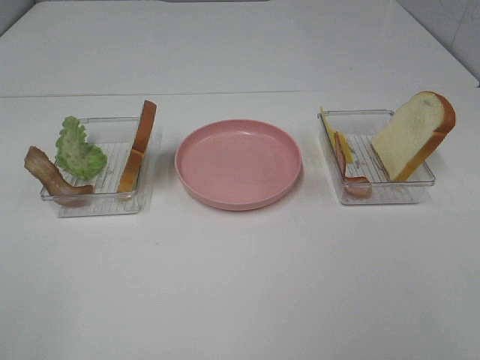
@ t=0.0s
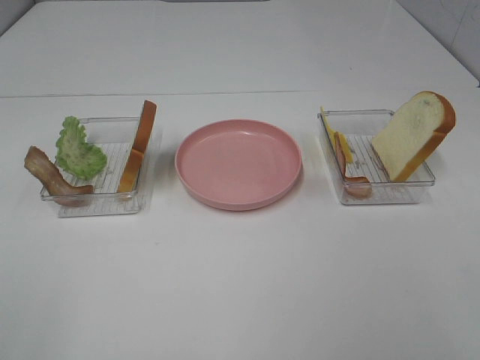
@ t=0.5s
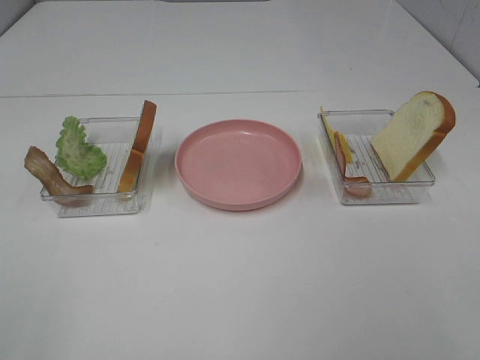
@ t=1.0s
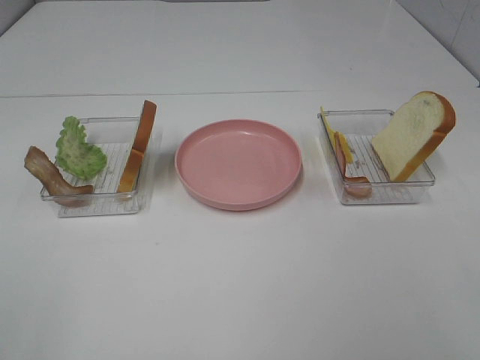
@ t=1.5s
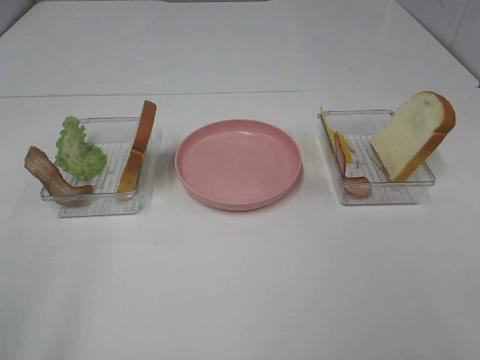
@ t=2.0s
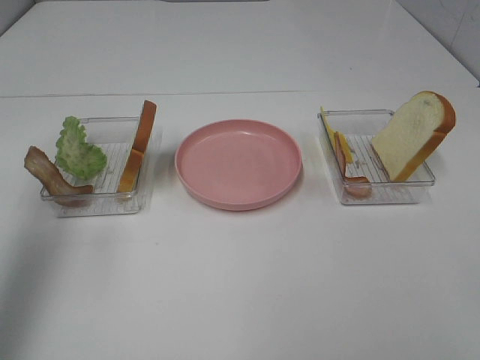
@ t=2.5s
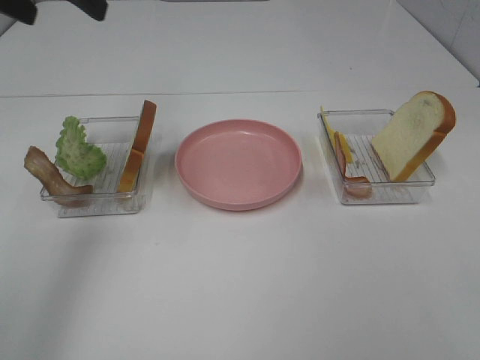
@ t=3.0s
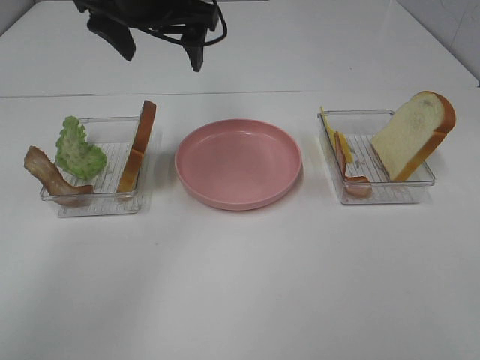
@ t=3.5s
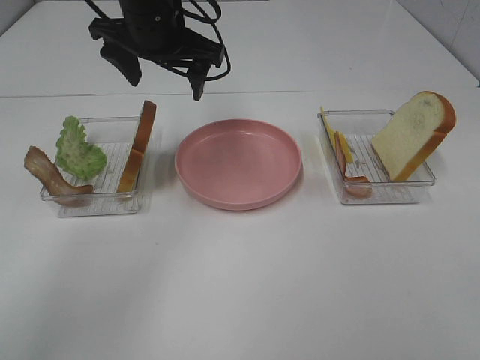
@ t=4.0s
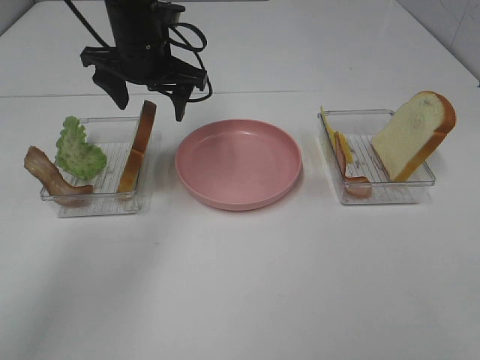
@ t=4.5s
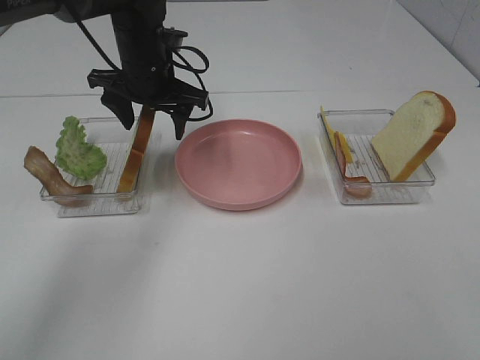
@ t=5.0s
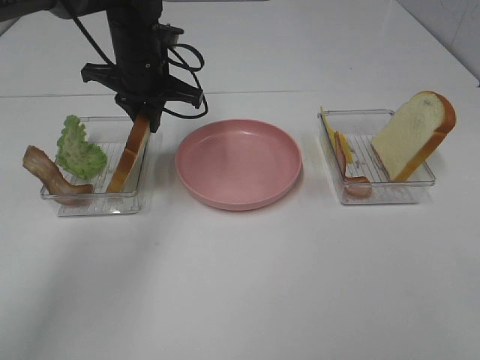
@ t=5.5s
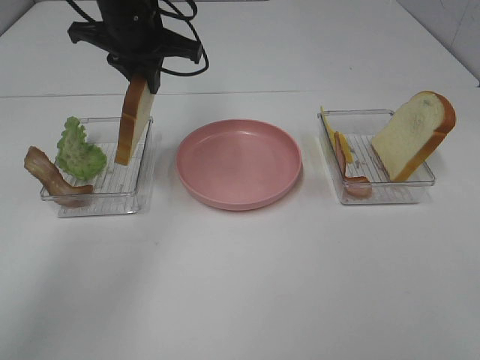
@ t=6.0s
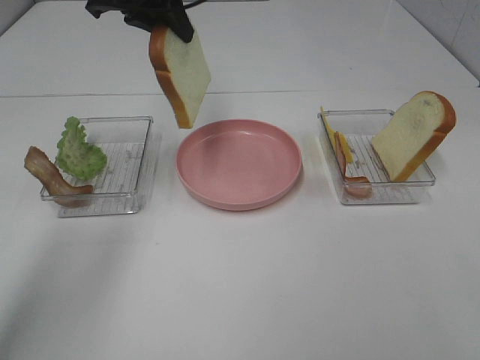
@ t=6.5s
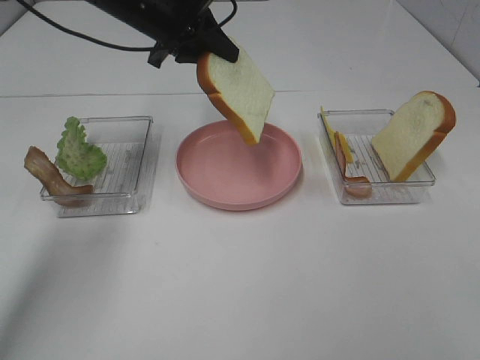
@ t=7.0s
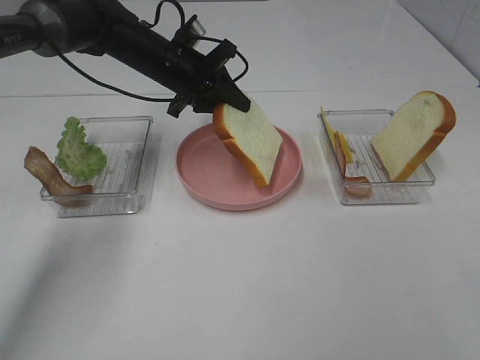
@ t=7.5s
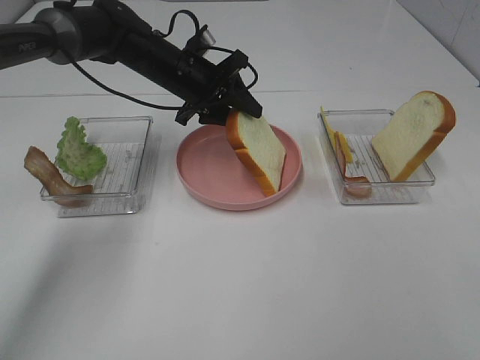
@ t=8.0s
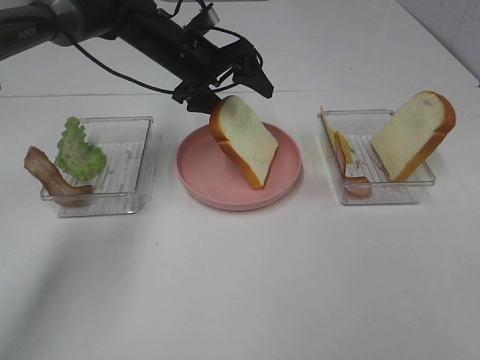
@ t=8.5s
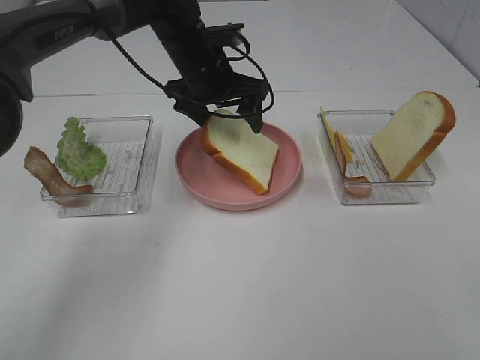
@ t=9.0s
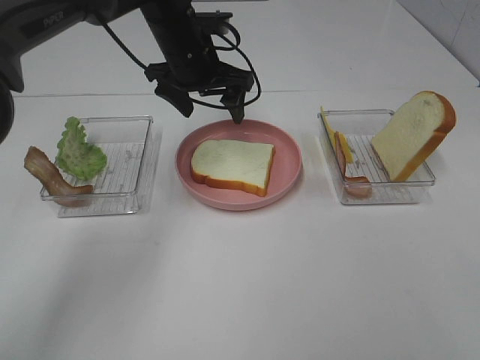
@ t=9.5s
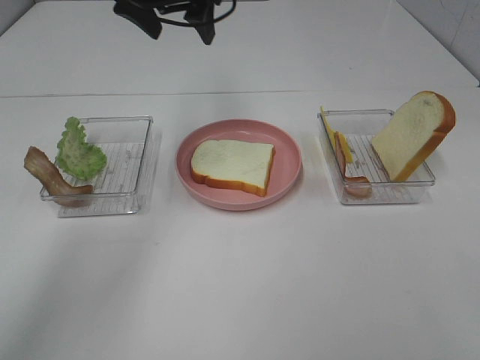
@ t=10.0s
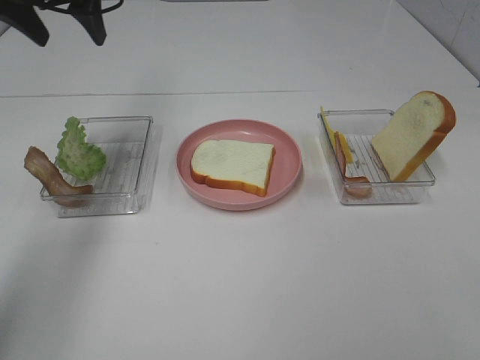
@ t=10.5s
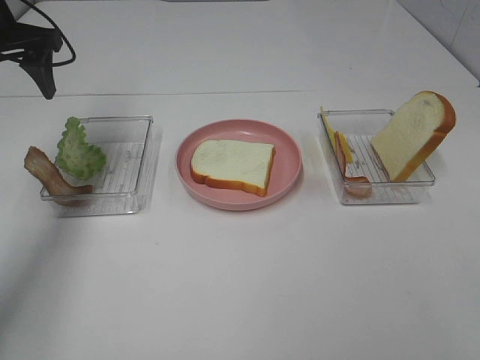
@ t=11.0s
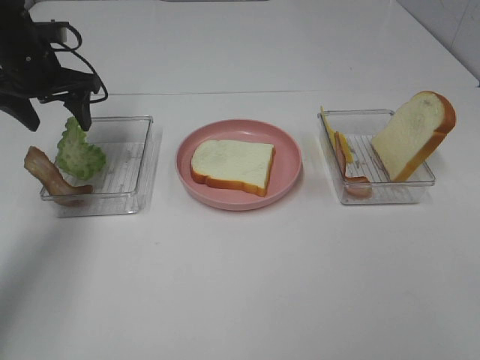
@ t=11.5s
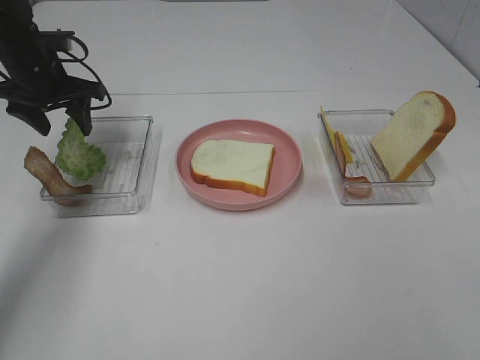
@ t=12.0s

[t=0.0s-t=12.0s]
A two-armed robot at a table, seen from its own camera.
Task of the whole recording: Make sandwiches.
Step, t=0.0s to t=5.0s: Left hand:grab the bread slice.
Step, t=5.5s to t=9.0s: Left hand:place the bread slice on the plate.
t=2.0s to t=4.0s: The left gripper travels forward and to the right by approximately 40 cm.
t=4.0s to t=6.0s: The left gripper closes its fingers.
t=6.0s to t=8.0s: The left gripper shifts approximately 10 cm downward.
t=8.0s to t=10.0s: The left gripper shifts roughly 15 cm upward.
t=10.0s to t=12.0s: The left gripper moves to the left and downward, roughly 20 cm.

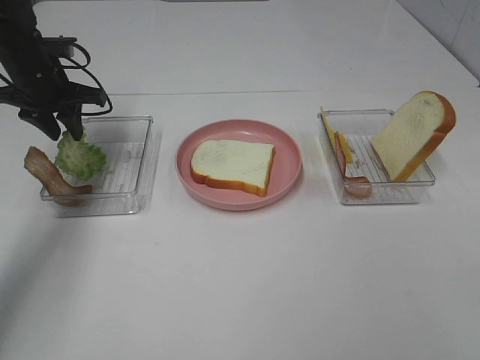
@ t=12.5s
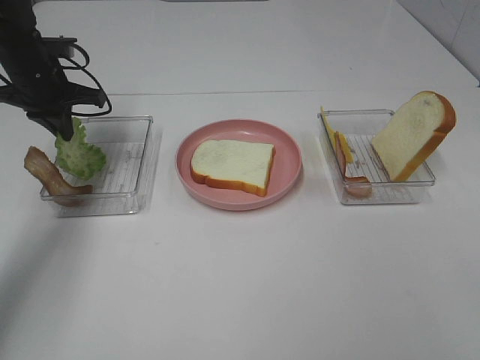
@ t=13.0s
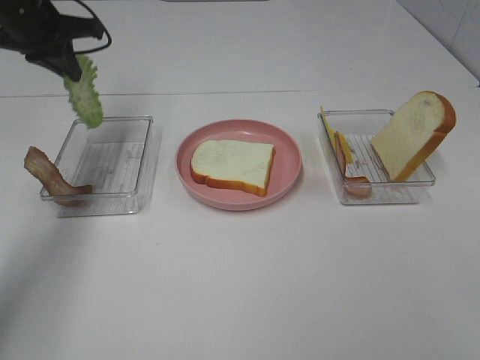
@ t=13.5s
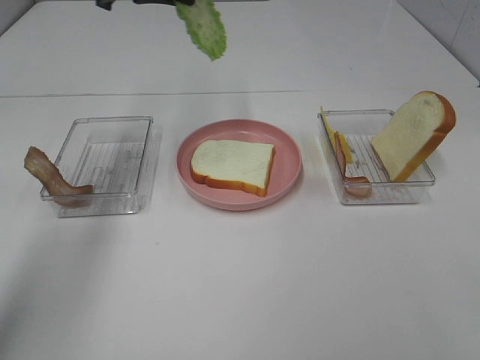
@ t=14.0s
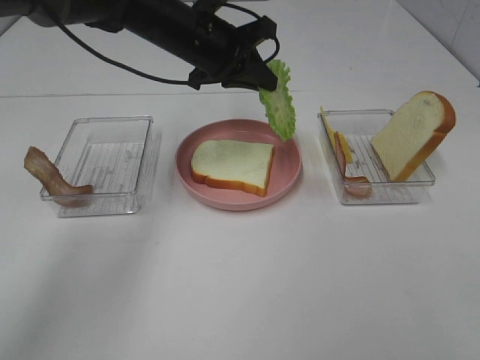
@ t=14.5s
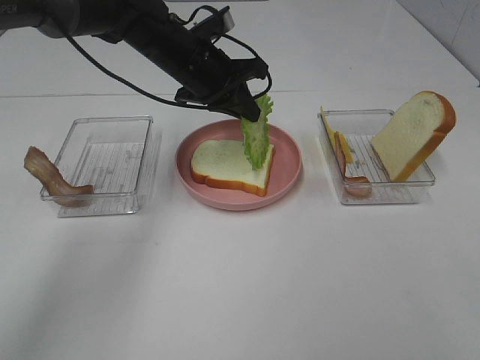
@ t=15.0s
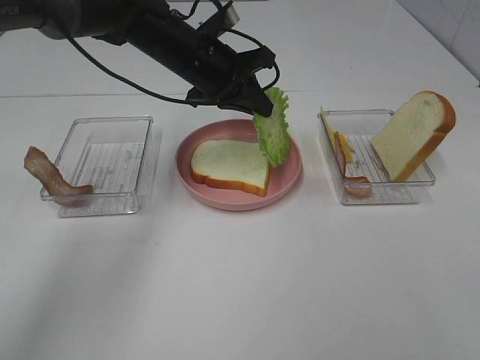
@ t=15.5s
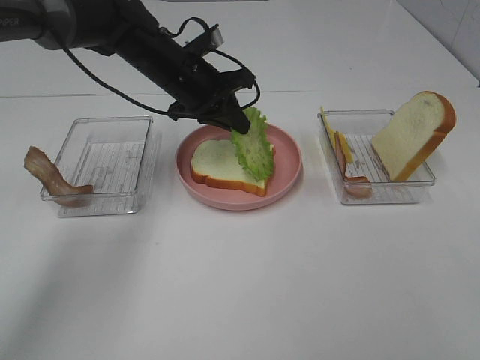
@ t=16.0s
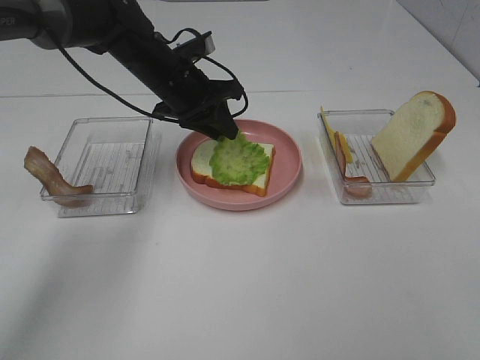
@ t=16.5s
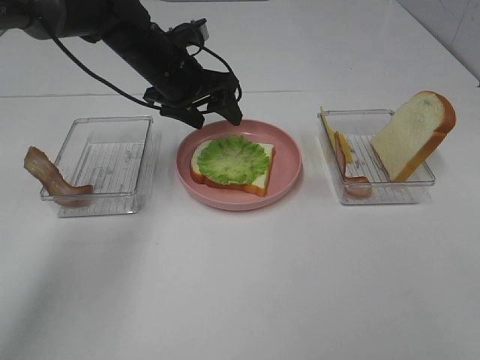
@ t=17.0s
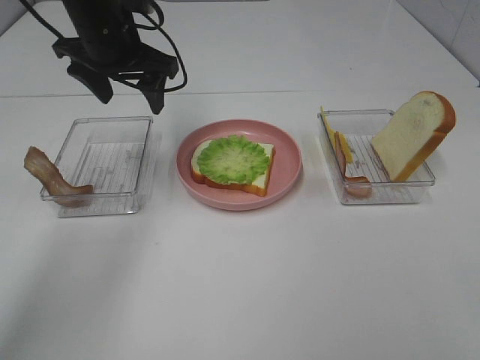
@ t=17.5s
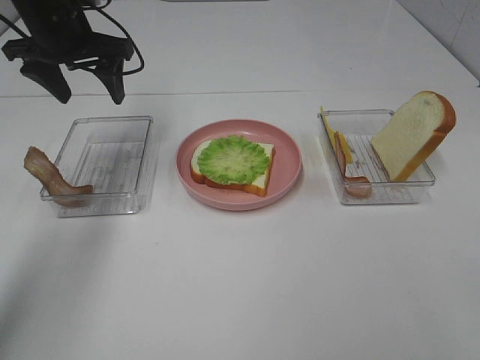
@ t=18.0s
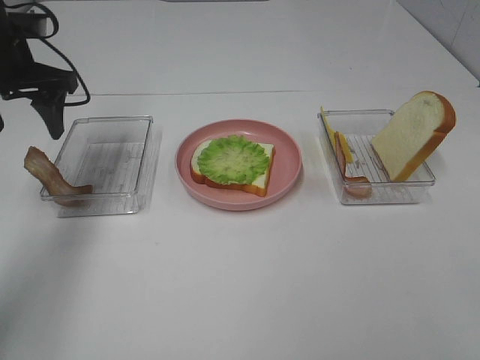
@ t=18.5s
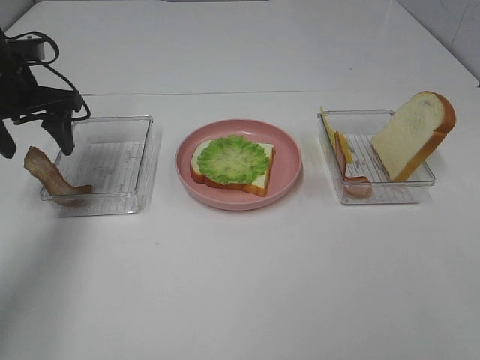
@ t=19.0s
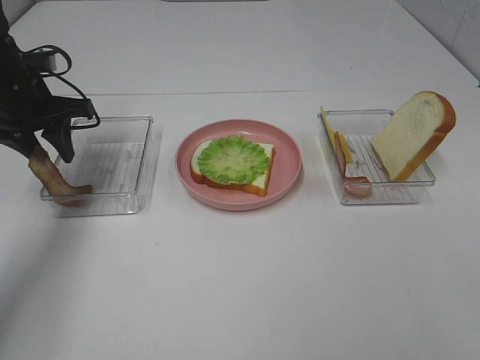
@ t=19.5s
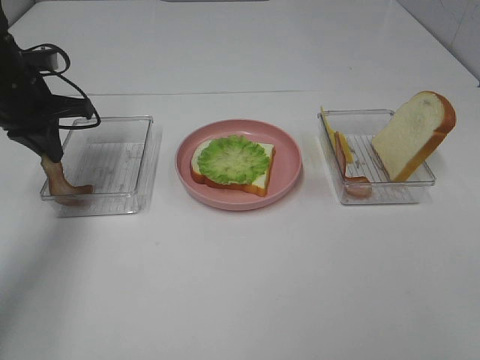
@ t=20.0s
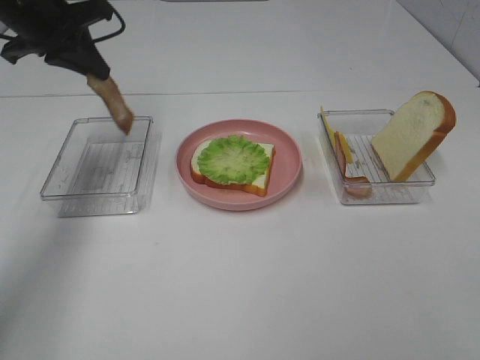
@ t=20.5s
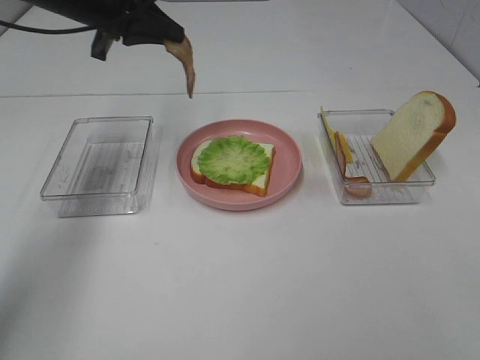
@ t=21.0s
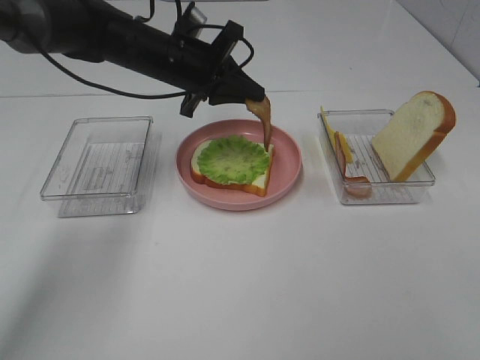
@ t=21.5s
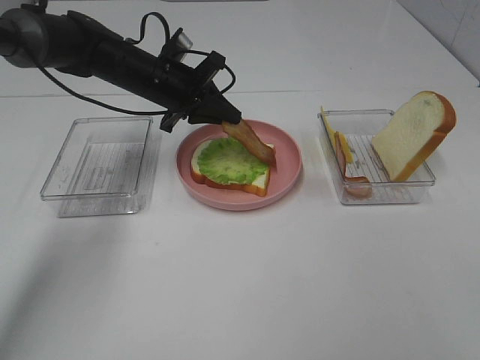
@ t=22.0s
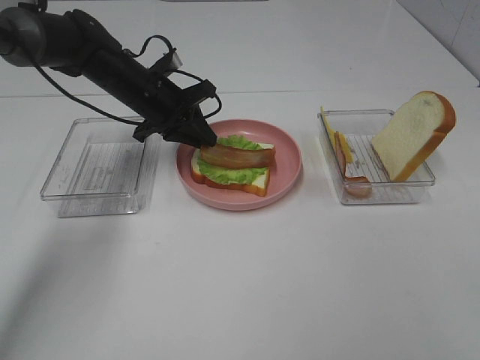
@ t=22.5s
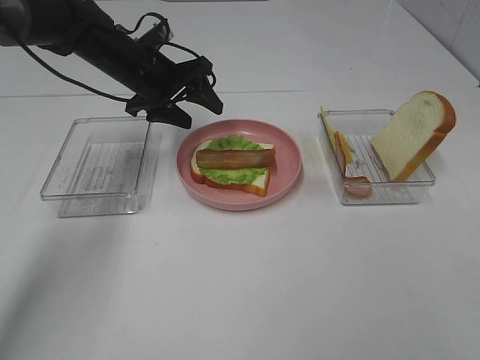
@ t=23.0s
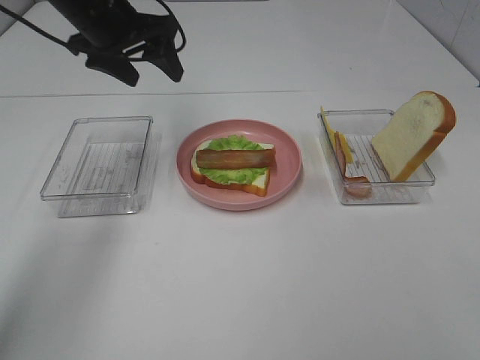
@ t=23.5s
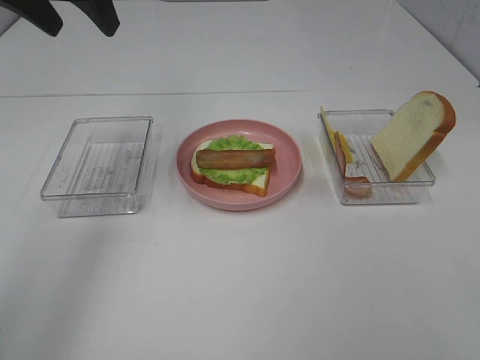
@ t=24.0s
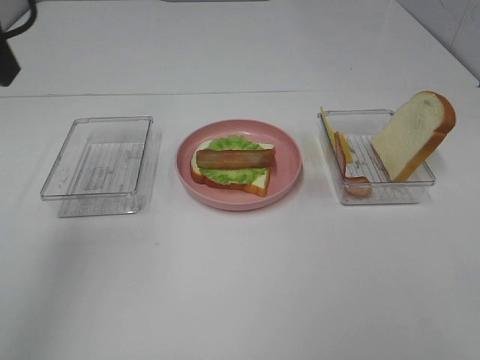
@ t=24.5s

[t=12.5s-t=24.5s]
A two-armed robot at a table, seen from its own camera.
Task of the whole recording: Make sandwiches.
Step, t=13.0s to t=16.5s: Left hand:place the lettuce slice on the bread slice.
Step, t=17.0s to t=19.5s: Left hand:grab the bacon.
Step, t=20.0s to t=22.5s: Left hand:place bacon on lettuce slice.
t=12.5s to t=14.5s: The left gripper is displaced to the right by approximately 20 cm, and closes.
t=14.5s to t=16.5s: The left gripper heads downward, covering roughly 5 cm.
t=16.5s to t=18.5s: The left gripper heads to the left and upward, covering approximately 20 cm, and opens.
t=18.5s to t=20.5s: The left gripper shifts by approximately 5 cm, and closes its fingers.
t=20.5s to t=22.5s: The left gripper heads downward and to the right, covering some 15 cm.
t=22.5s to t=24.5s: The left gripper shifts roughly 35 cm upward, backward and to the left, and opens.

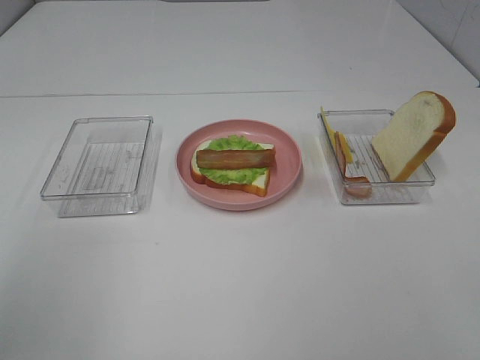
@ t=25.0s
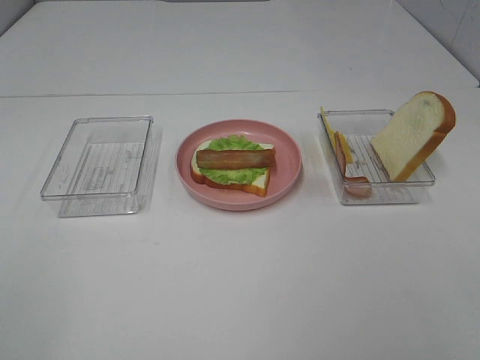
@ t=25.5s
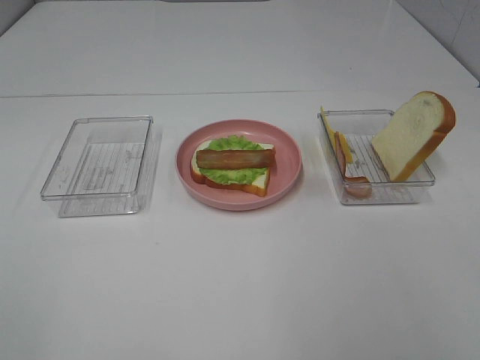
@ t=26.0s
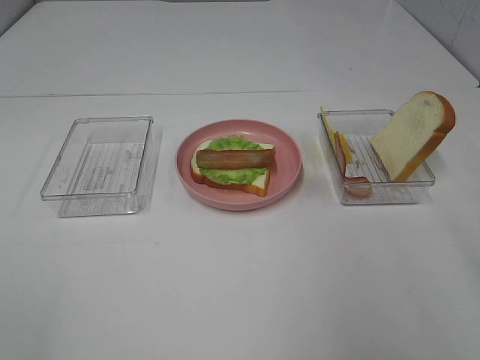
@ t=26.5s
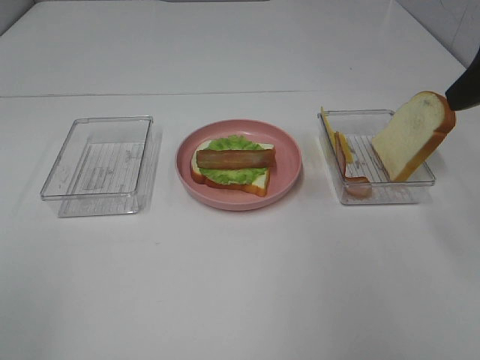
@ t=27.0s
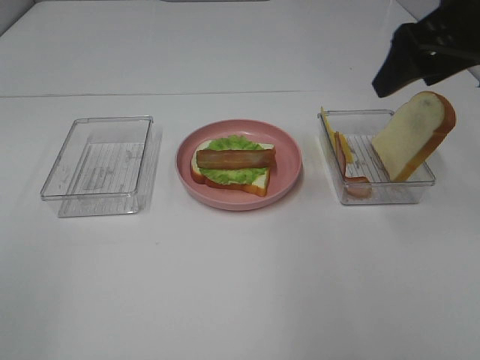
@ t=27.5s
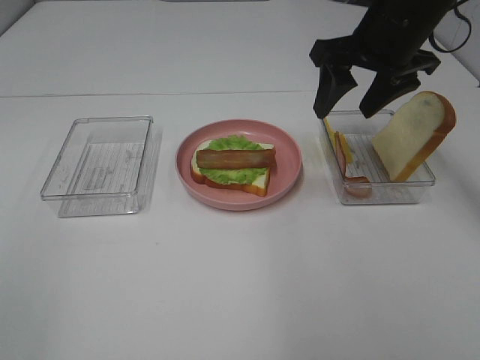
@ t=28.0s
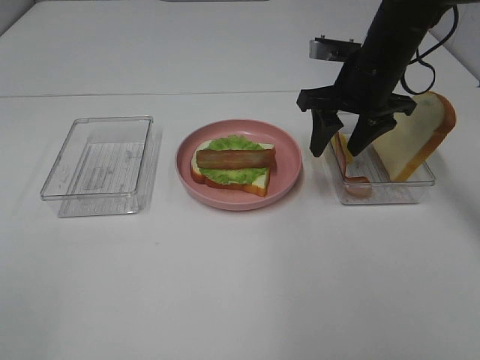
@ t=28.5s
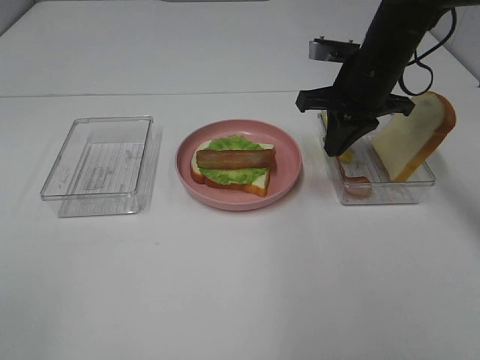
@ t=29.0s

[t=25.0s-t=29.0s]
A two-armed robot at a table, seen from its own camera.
Task of the whole recording: Make sandwiches.
t=25.0s to t=27.0s: The right gripper is displaced forward by approximately 25 cm.
t=27.0s to t=29.0s: The right gripper is displaced forward, downward and to the left by some 25 cm, and closes its fingers.
